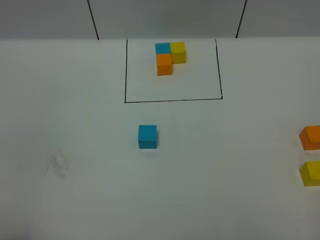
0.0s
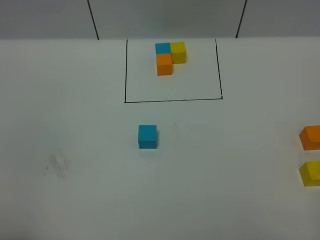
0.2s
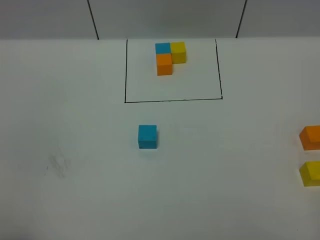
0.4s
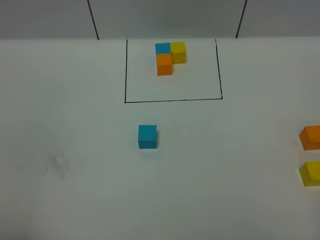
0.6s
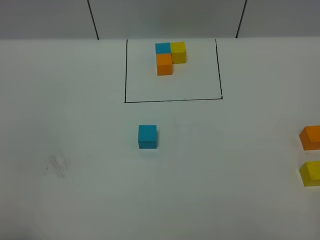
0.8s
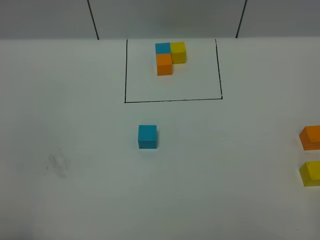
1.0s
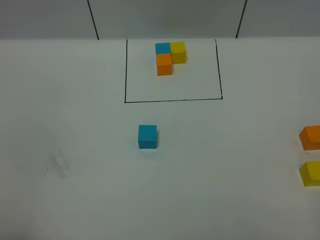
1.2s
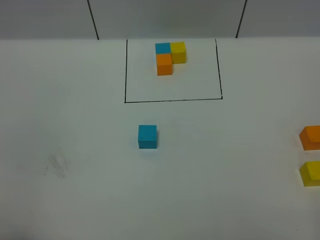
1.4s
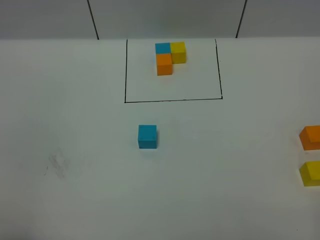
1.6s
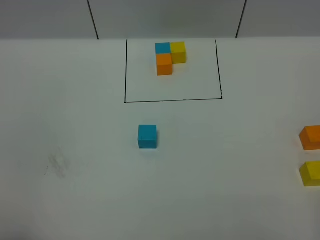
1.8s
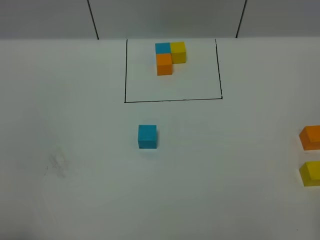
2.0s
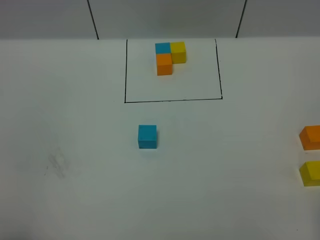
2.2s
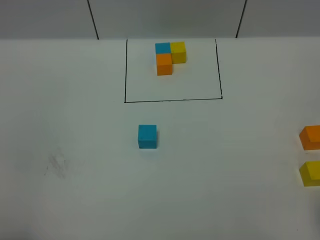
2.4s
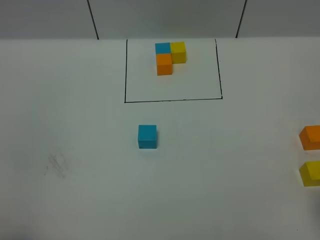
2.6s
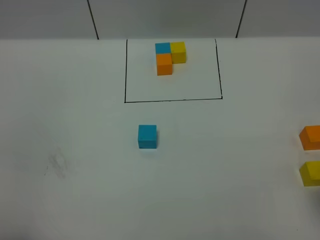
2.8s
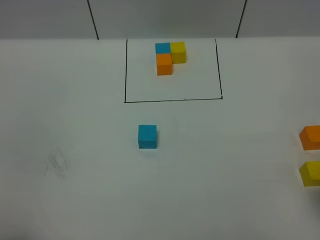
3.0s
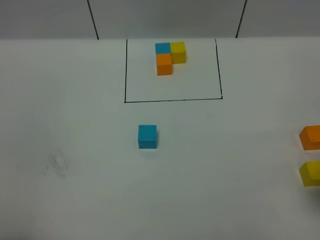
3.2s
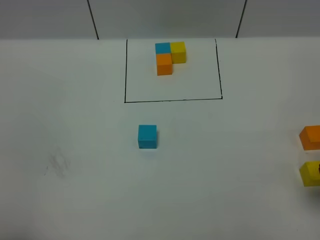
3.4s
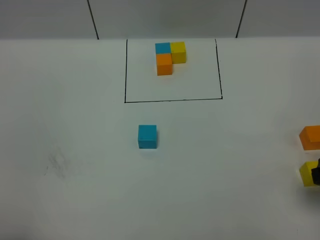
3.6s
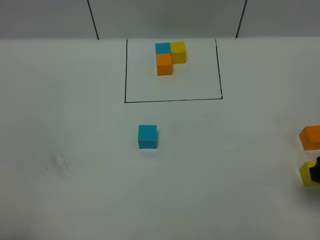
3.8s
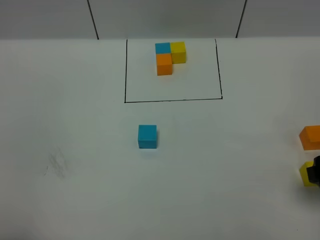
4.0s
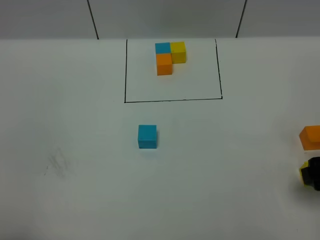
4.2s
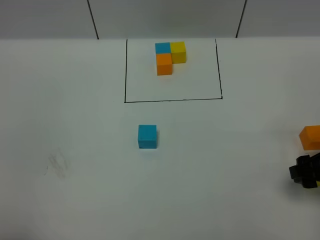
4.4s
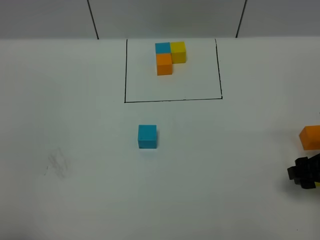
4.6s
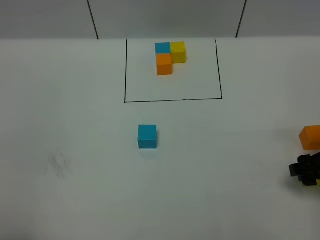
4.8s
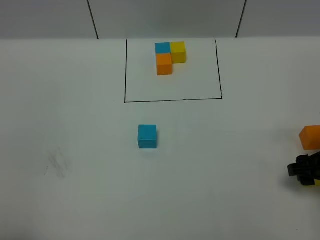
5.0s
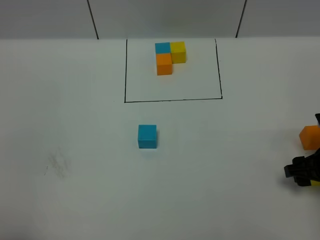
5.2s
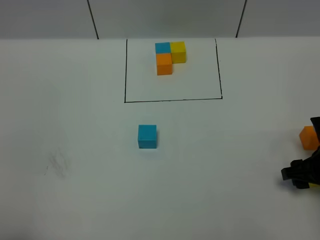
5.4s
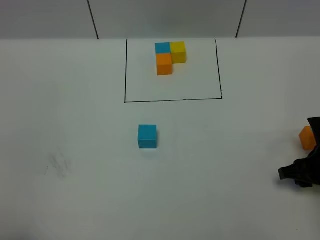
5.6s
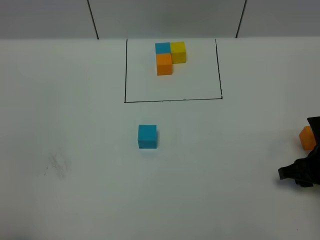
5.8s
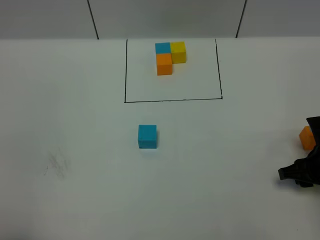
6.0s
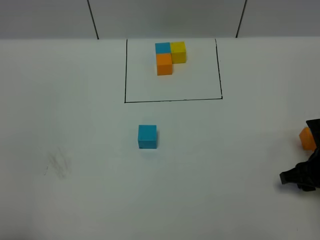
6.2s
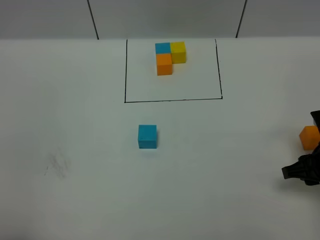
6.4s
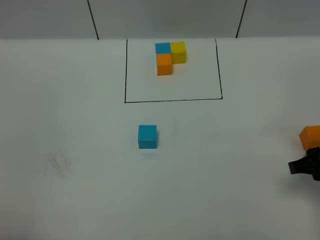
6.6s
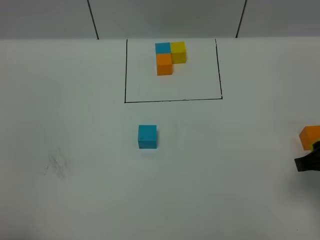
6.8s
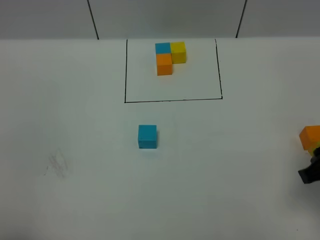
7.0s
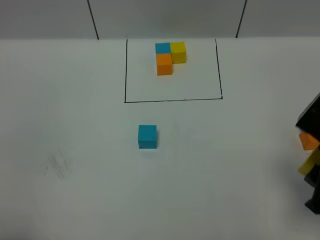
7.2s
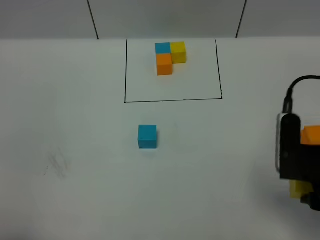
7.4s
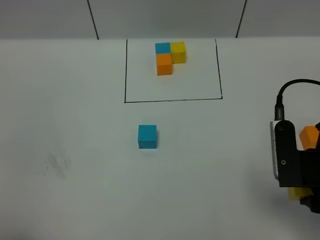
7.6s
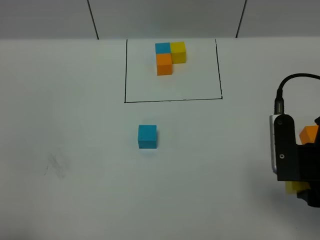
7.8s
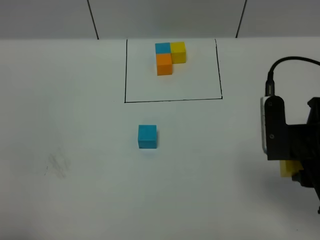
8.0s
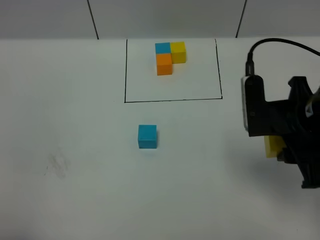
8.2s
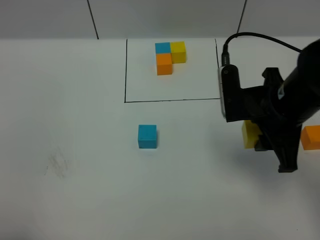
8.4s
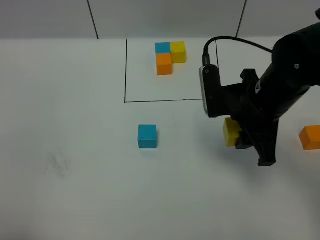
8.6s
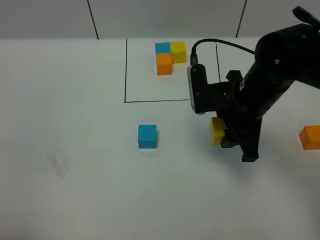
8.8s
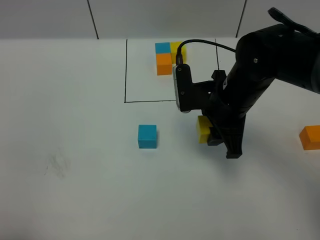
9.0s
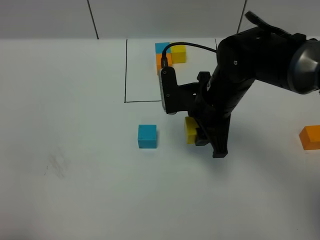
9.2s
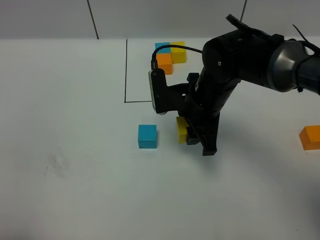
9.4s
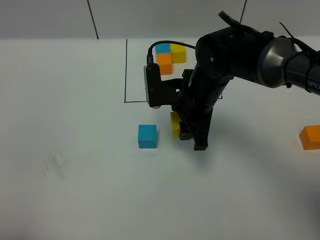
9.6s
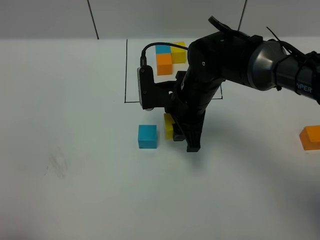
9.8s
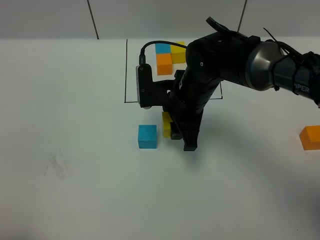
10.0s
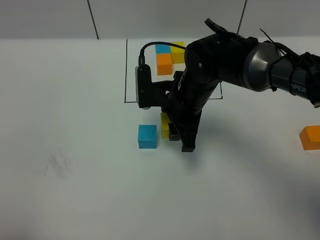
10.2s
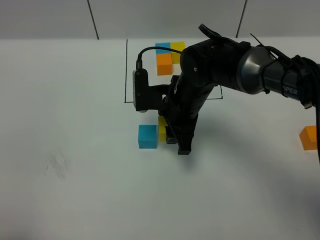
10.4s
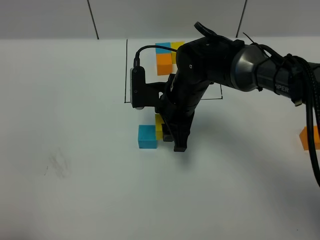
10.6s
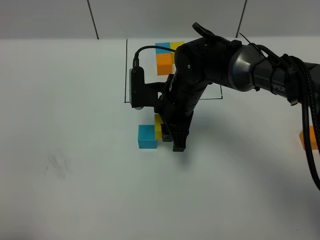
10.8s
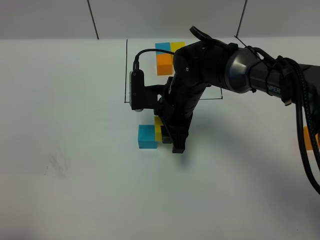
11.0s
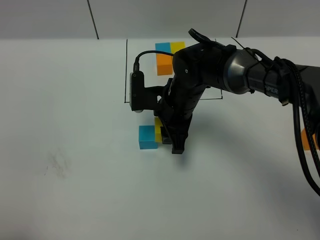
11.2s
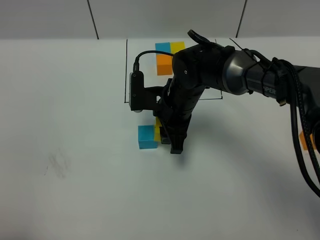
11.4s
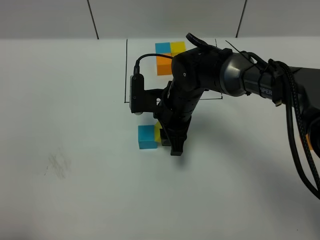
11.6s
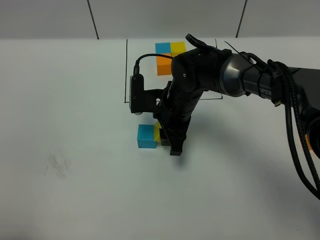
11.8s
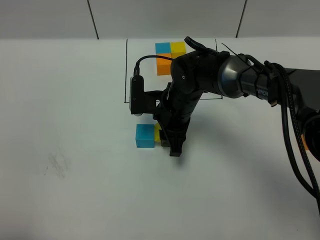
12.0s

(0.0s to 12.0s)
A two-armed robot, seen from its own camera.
Task of the whole recording: According to the building block template in front, assemble the scattered blocks together.
3.0s - 4.4s: The right gripper is displaced downward and forward by some 10 cm.
4.4s - 6.0s: The right gripper travels downward by some 5 cm.
6.0s - 7.6s: The right gripper goes roughly 15 cm upward, backward and to the left.
7.6s - 9.0s: The right gripper shifts some 20 cm forward and to the left.
9.0s - 10.4s: The right gripper travels to the left by roughly 5 cm.
10.4s - 12.0s: The grippers stay close to where they were, moving slightly.

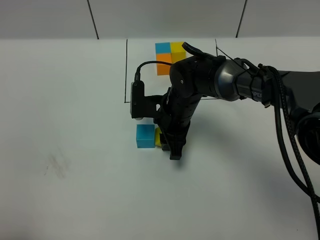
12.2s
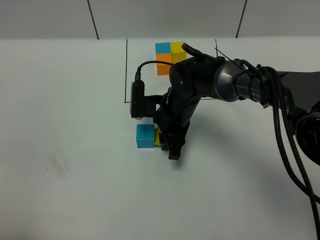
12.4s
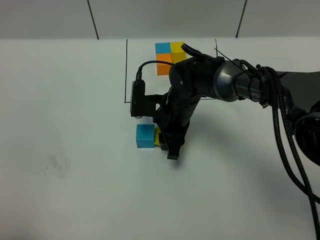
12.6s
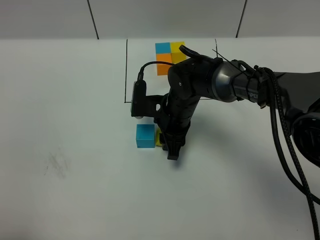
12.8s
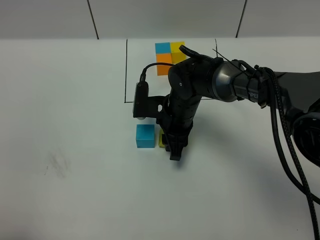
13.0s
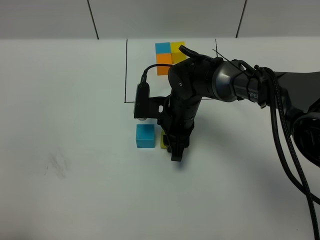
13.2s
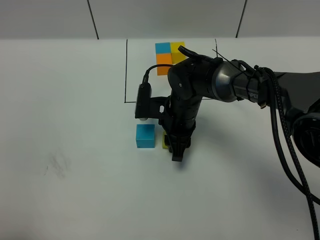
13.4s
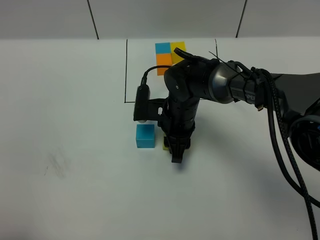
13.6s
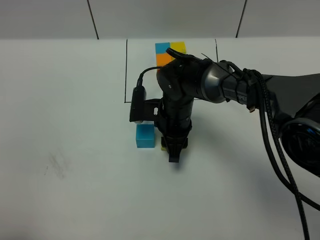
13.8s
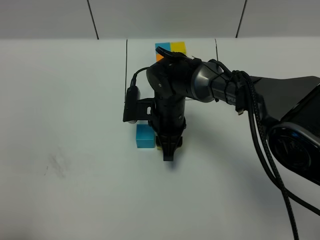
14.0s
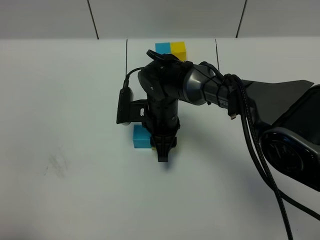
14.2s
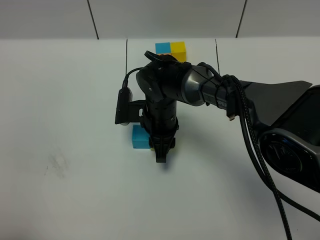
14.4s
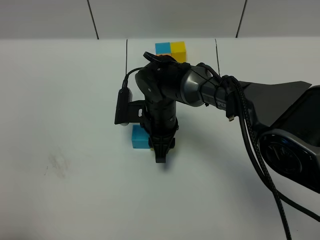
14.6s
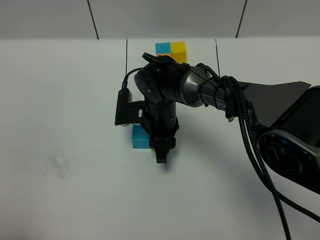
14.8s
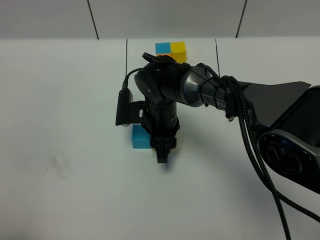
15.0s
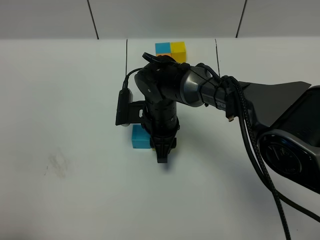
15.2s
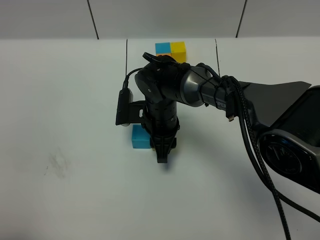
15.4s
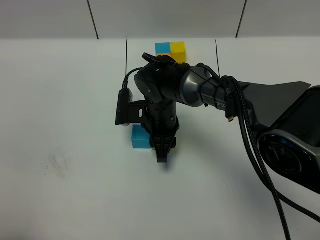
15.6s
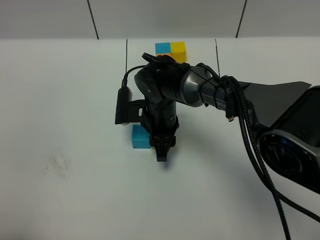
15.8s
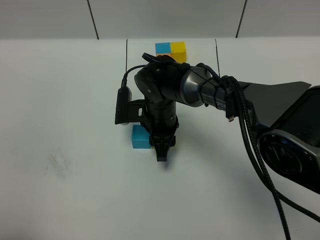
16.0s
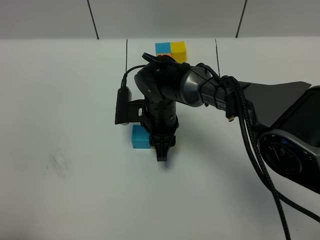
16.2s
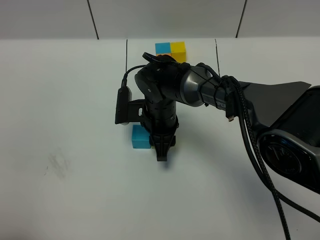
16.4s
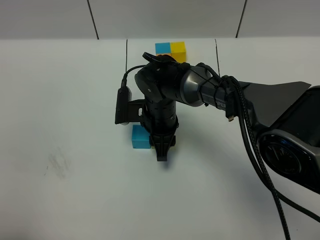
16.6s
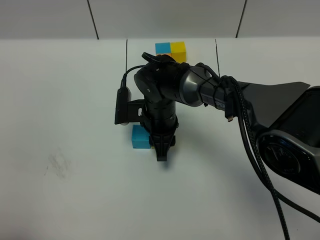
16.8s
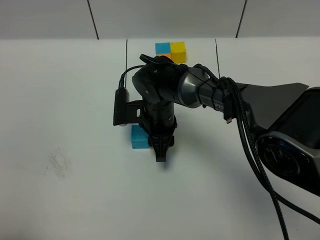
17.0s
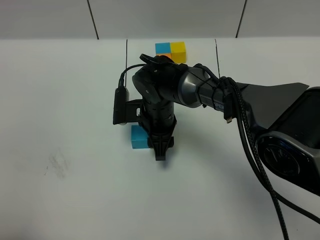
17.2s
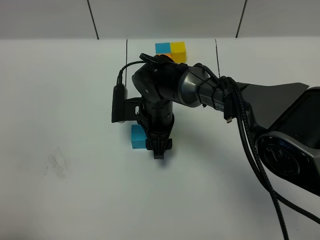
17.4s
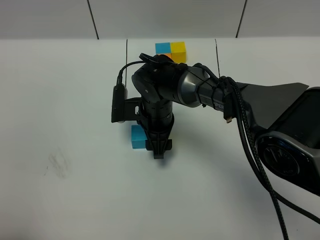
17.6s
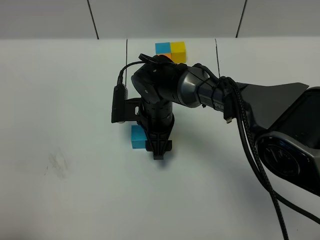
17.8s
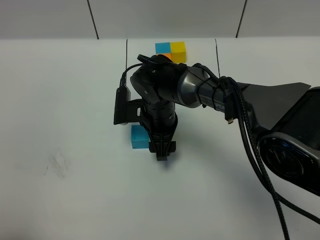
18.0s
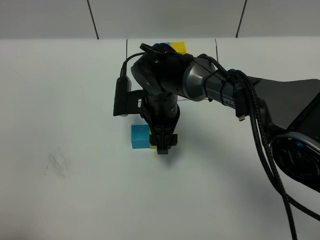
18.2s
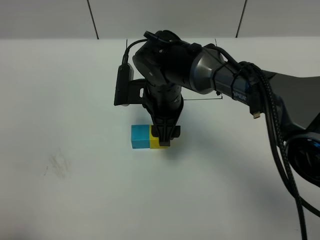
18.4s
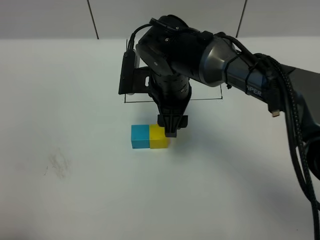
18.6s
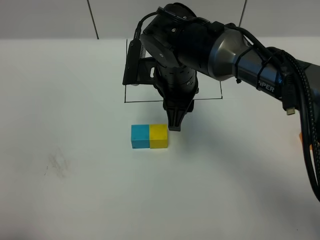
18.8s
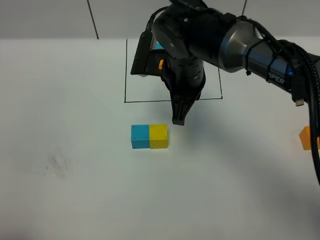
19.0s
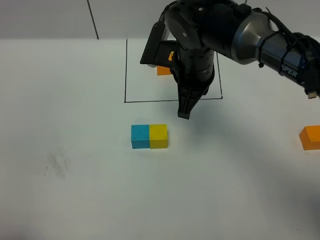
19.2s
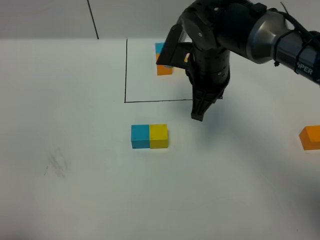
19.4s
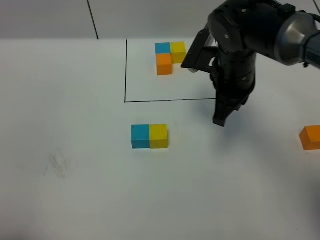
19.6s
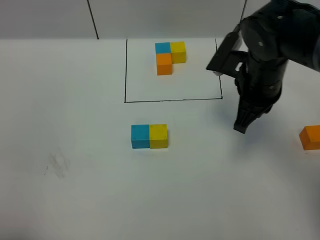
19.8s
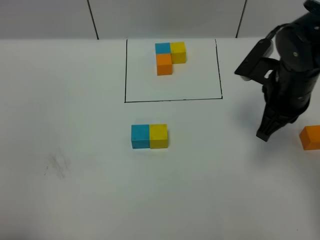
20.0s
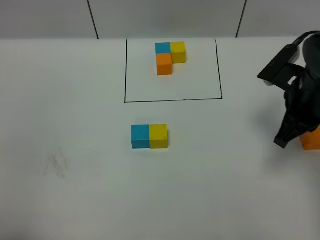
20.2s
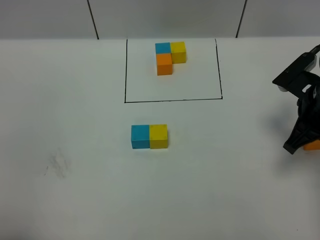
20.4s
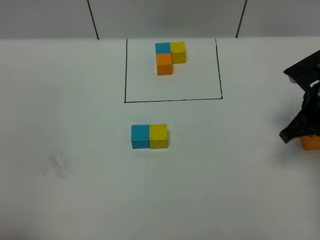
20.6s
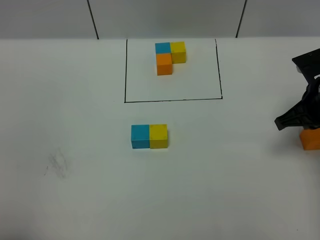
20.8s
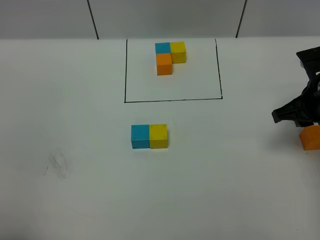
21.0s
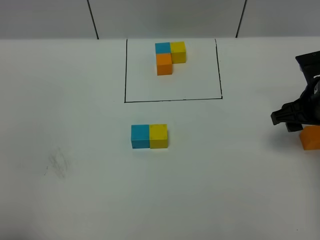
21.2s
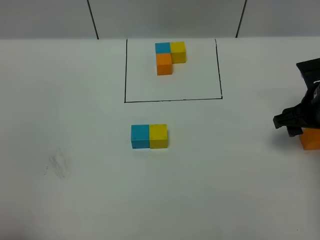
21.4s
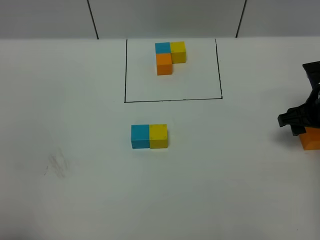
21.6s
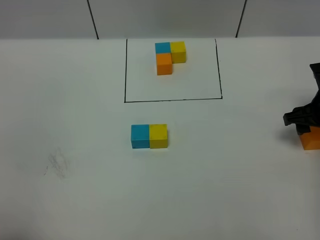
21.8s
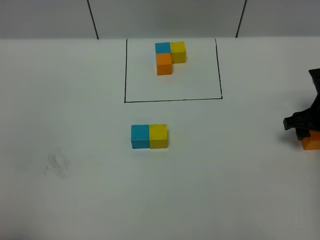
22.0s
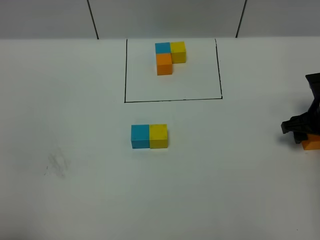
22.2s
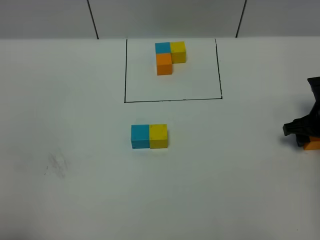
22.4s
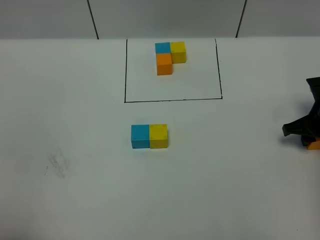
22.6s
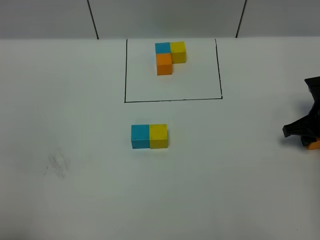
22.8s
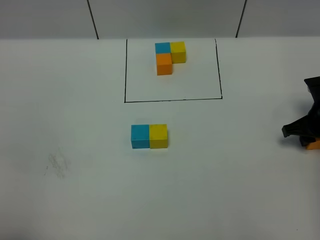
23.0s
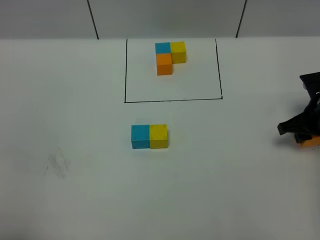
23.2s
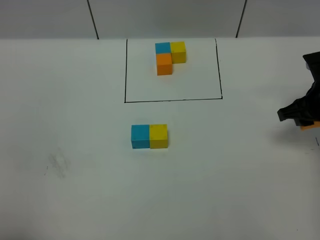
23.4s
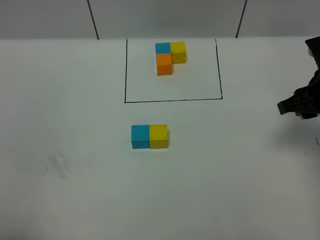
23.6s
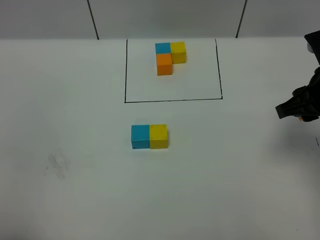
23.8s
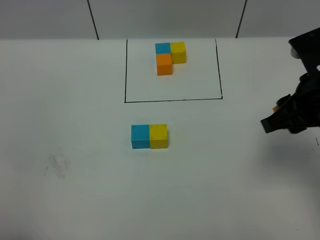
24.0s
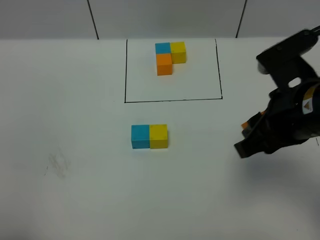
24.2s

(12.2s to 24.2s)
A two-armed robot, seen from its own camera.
Task of the whole recording: According to the building block template in front, assemble the scattered blocks together.
Step, 12.2s - 17.2s: Put the yellow cube on the right of the blue cube.
12.2s - 15.2s: There are only small adjustments of the grippers.
15.2s - 16.6s: Neither gripper changes place.
16.6s - 18.2s: The grippers move only a little.
18.2s - 19.8s: The right gripper moves to the right and upward, about 20 cm, and closes.
19.8s - 21.2s: The right gripper goes some 10 cm to the right, and opens.
21.2s - 22.6s: The right gripper heads downward and to the right, covering about 10 cm.
22.6s - 24.2s: The right gripper moves upward, to the left and backward, about 25 cm.
